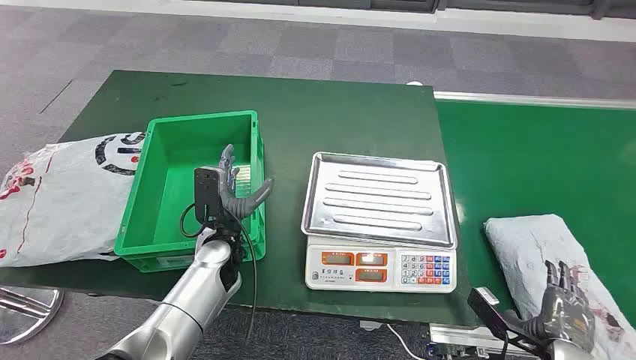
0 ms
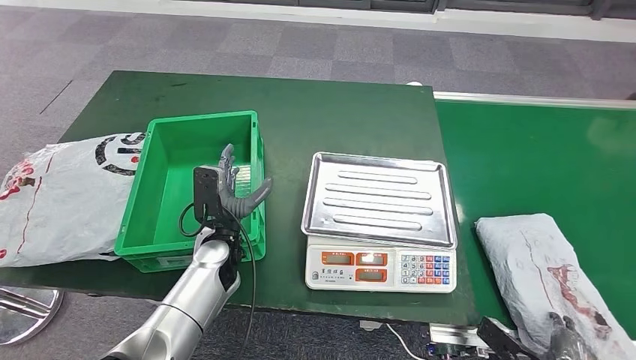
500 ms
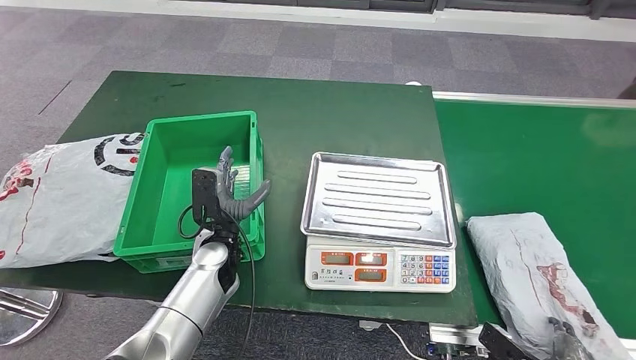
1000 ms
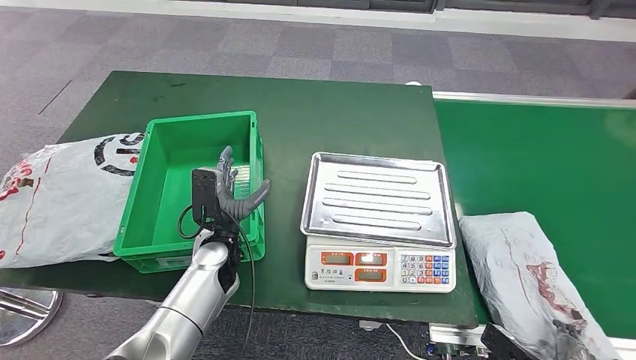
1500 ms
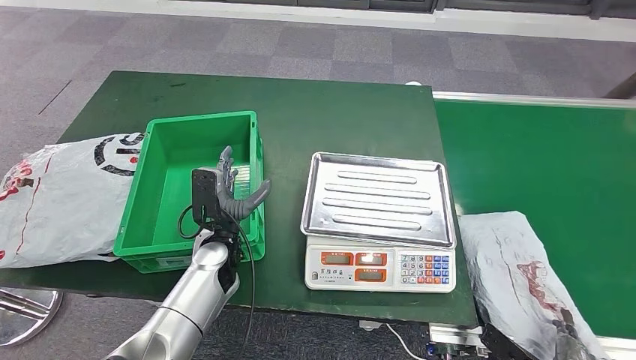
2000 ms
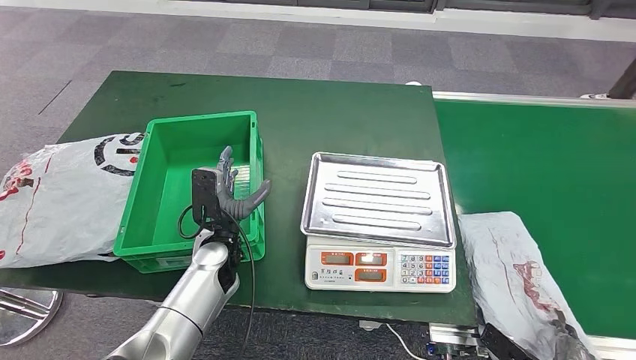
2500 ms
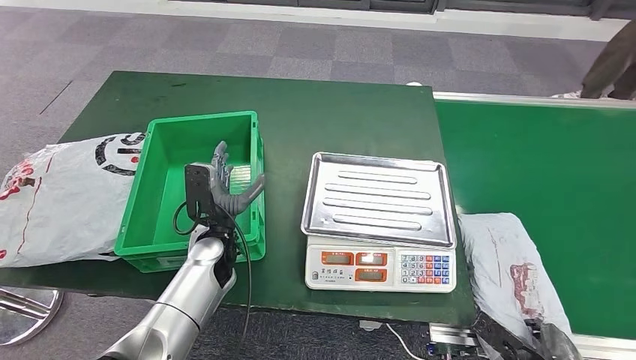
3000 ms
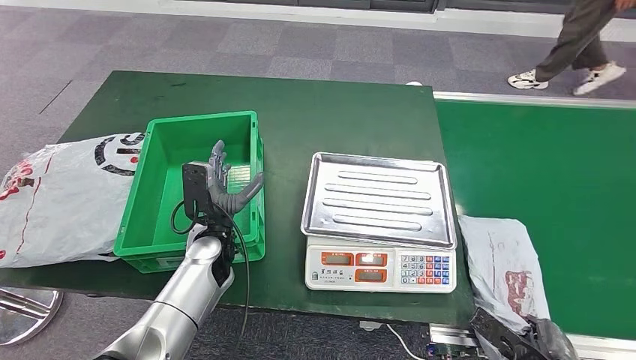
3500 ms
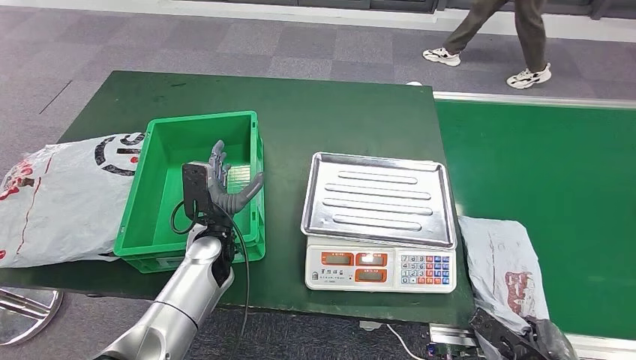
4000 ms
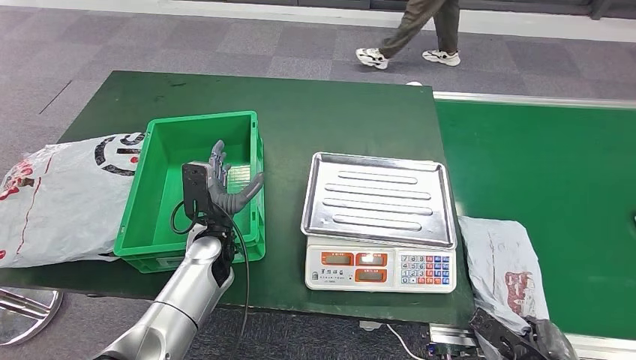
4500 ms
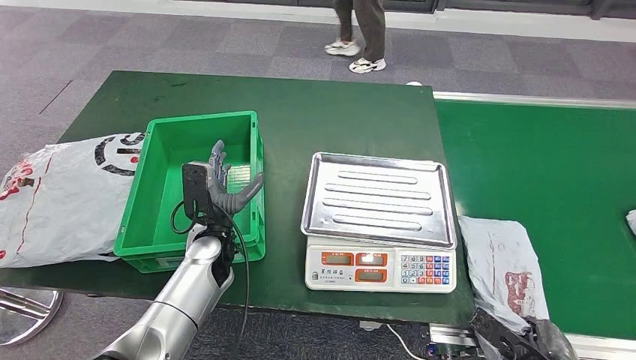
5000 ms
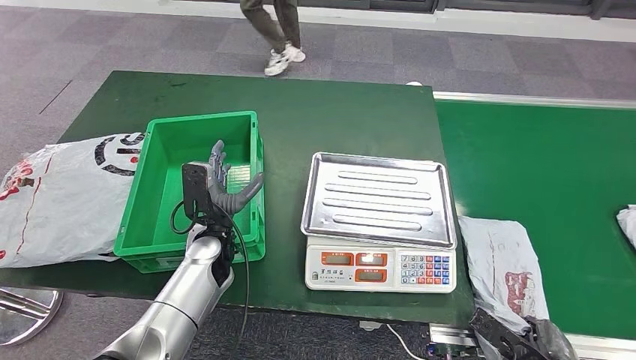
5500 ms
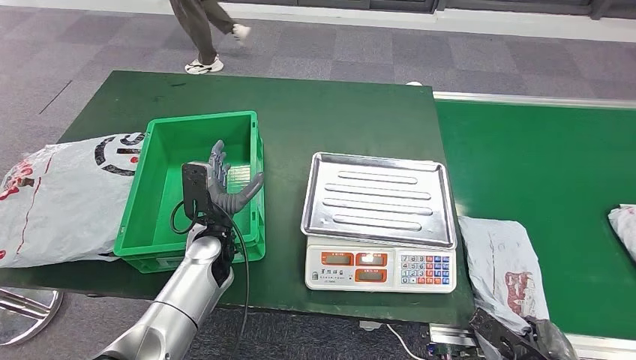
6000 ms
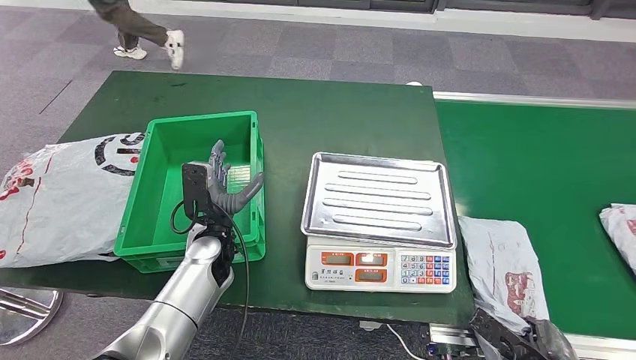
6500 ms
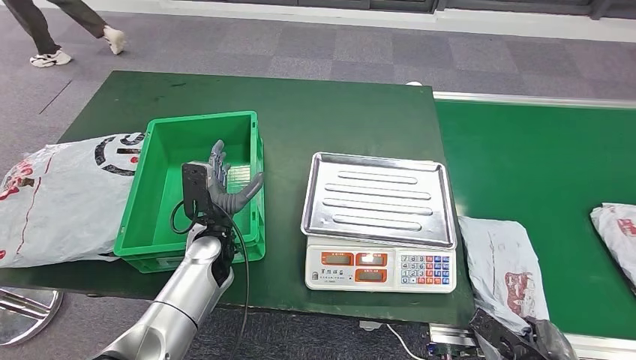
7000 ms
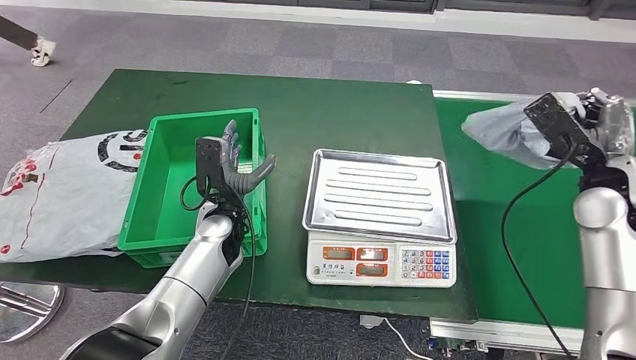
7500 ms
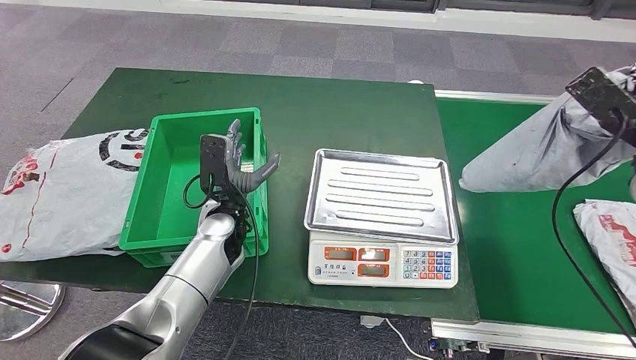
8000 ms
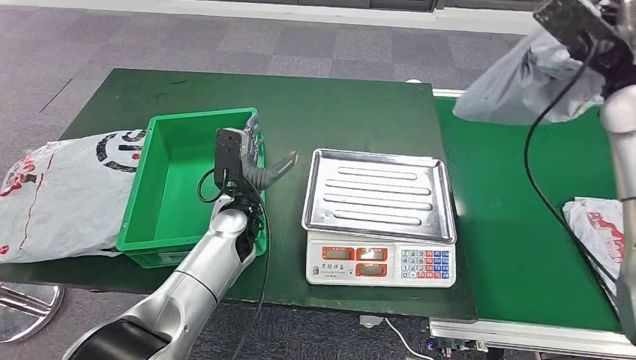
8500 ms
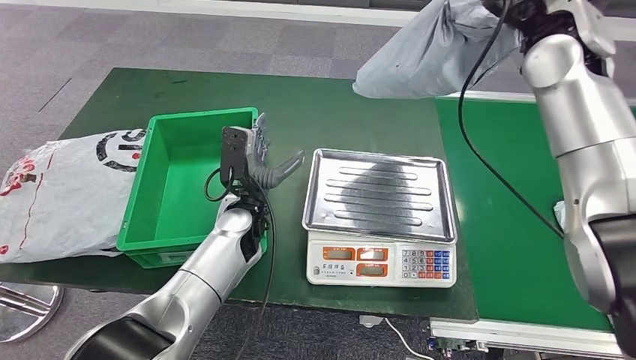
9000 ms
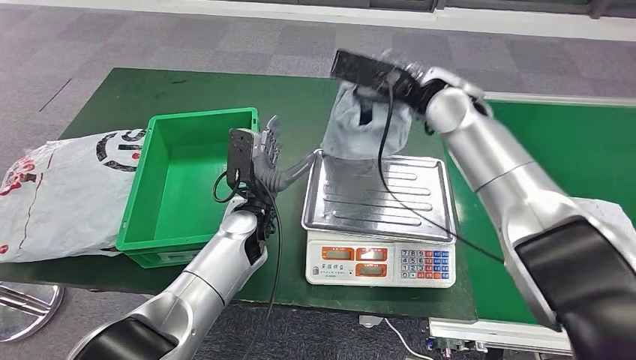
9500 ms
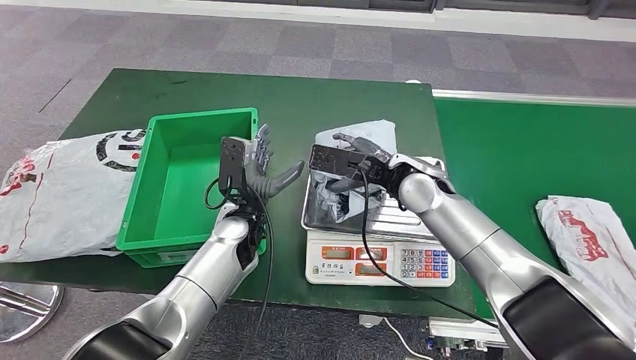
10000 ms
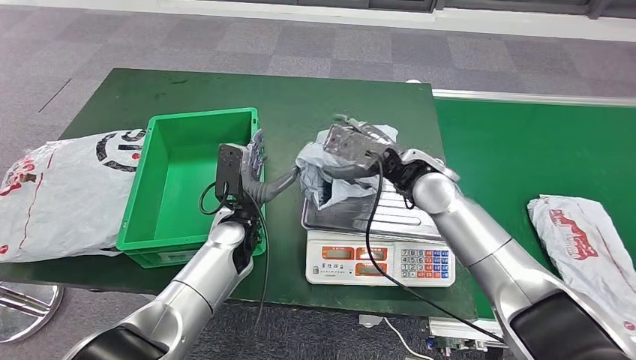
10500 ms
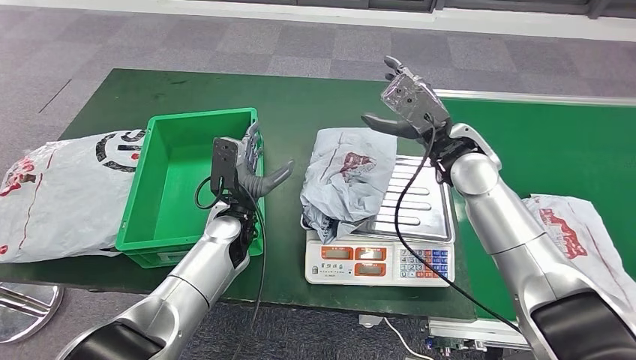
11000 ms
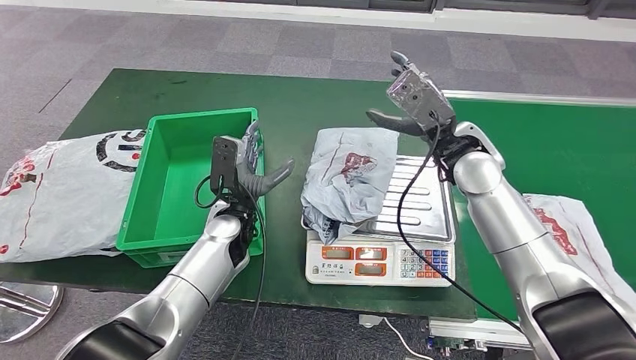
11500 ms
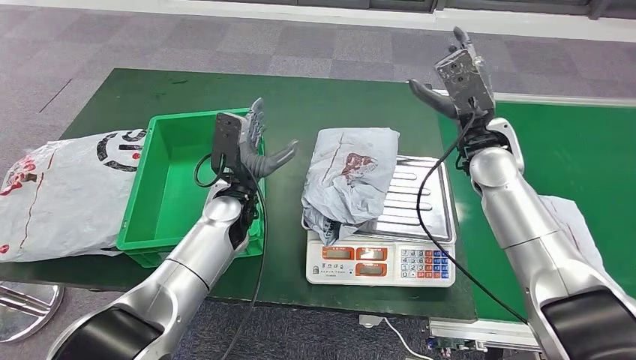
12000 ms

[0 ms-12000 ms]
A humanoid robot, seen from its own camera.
Step, 0 ms to 8500 ms: Take the parcel off the conveyor belt.
2000 ms to 4000 ms: The hands move only a little.
4000 ms to 6000 ms: Both hands stay put.

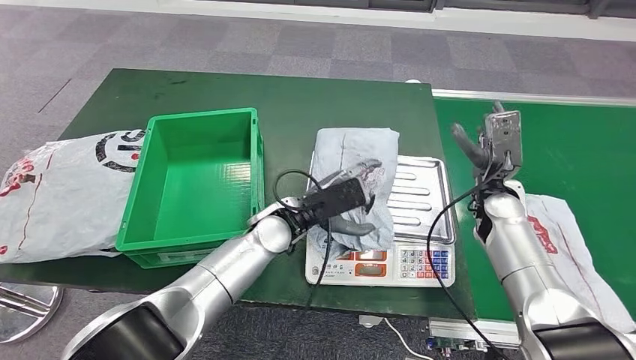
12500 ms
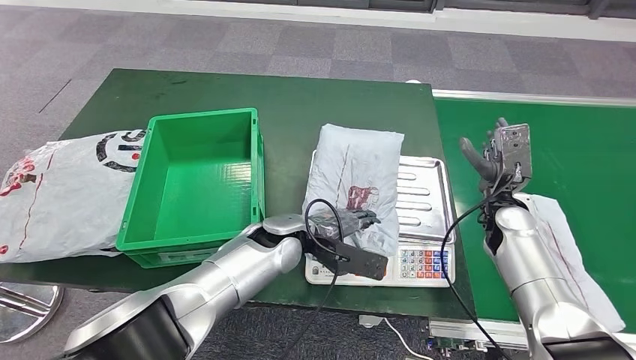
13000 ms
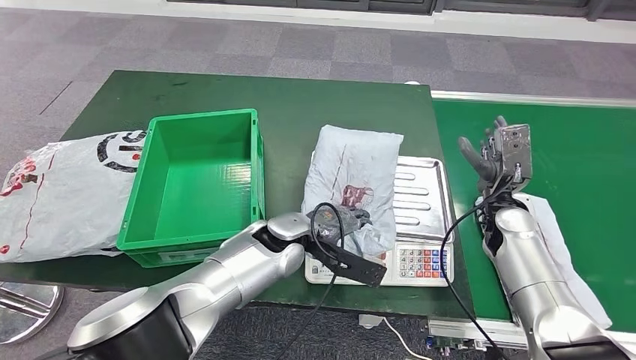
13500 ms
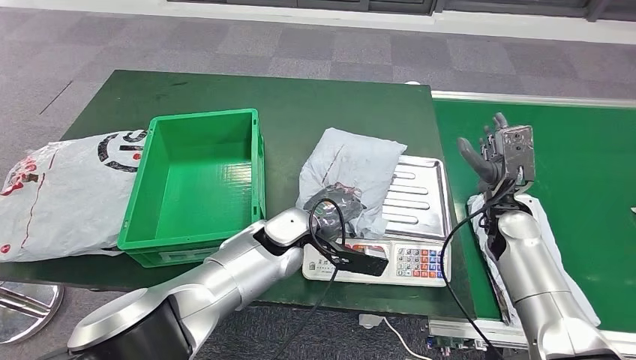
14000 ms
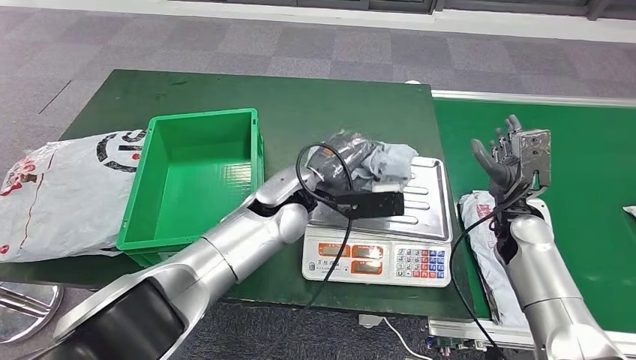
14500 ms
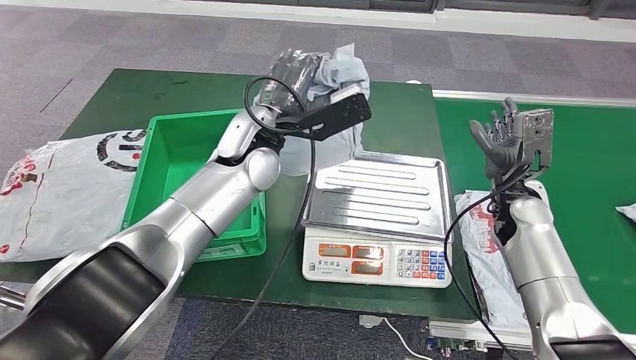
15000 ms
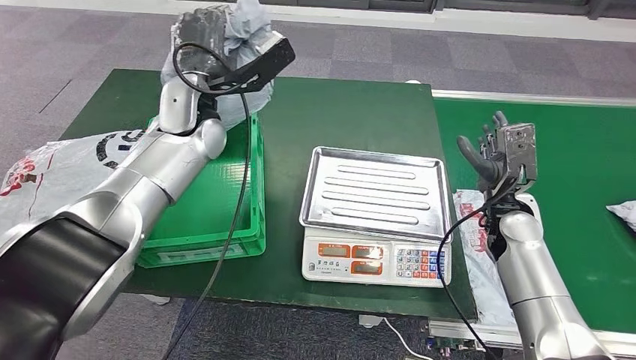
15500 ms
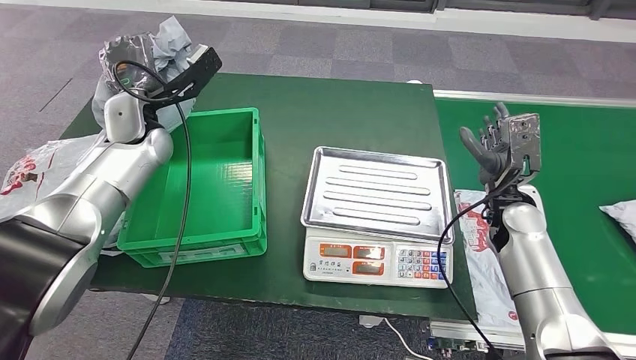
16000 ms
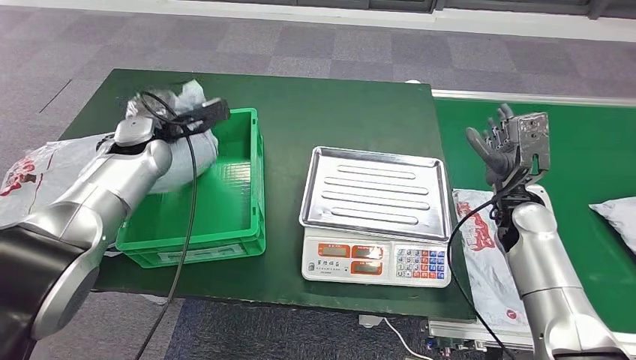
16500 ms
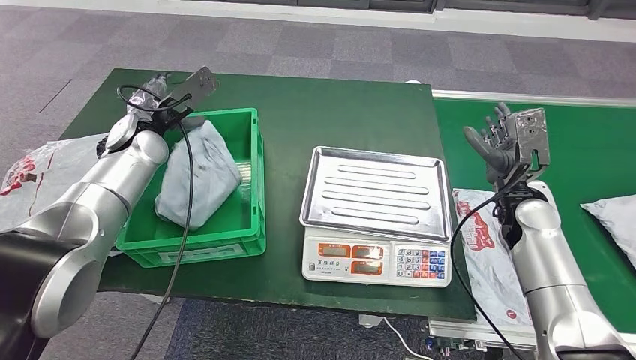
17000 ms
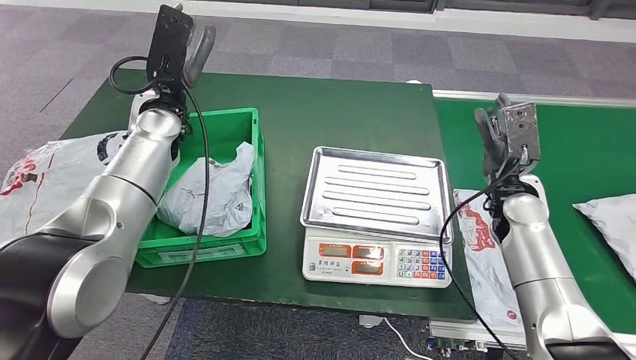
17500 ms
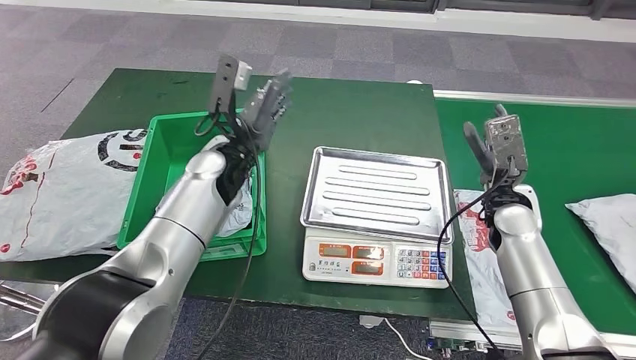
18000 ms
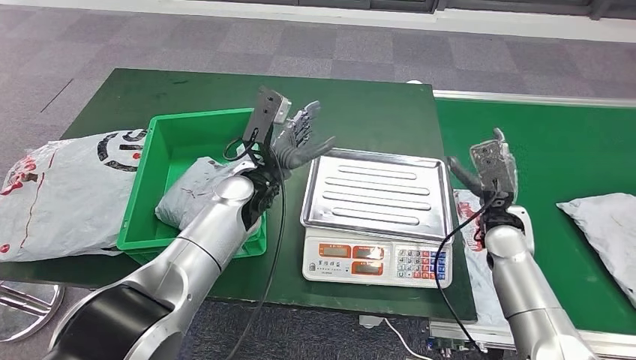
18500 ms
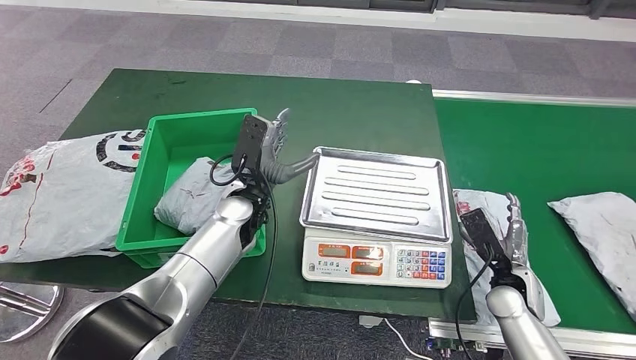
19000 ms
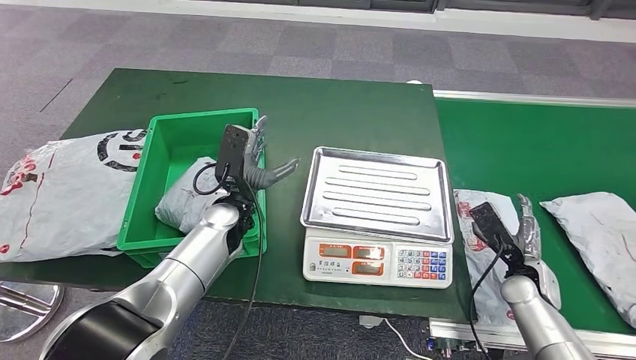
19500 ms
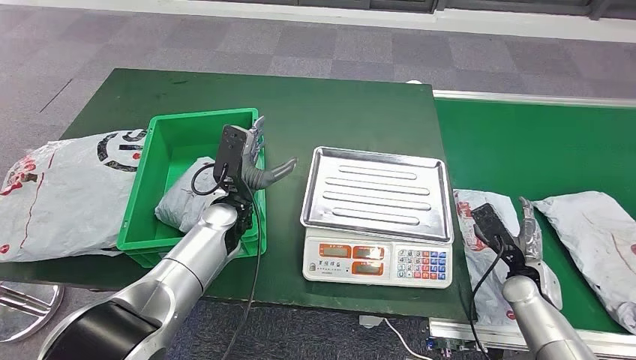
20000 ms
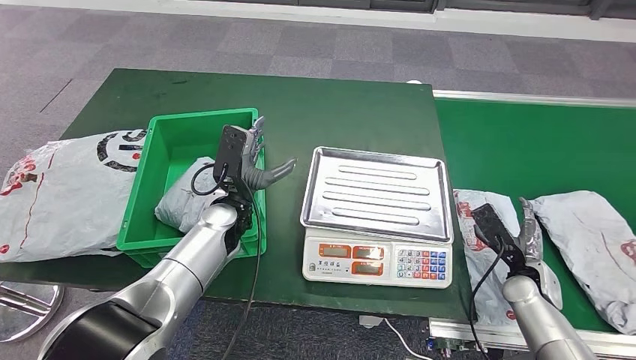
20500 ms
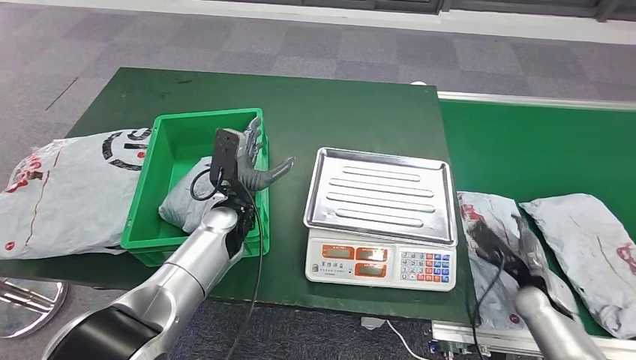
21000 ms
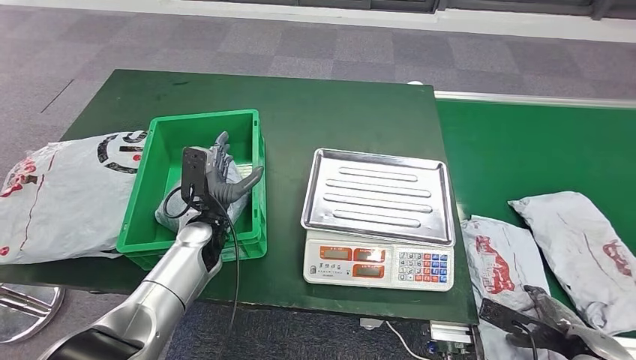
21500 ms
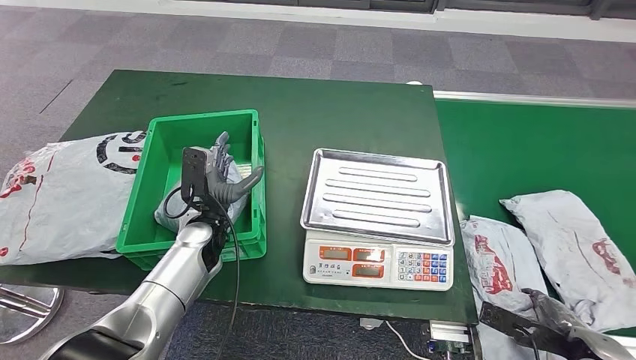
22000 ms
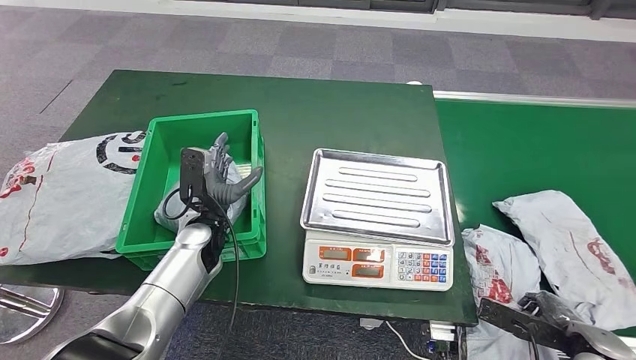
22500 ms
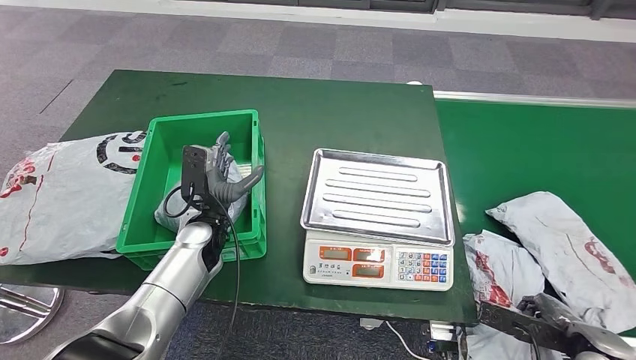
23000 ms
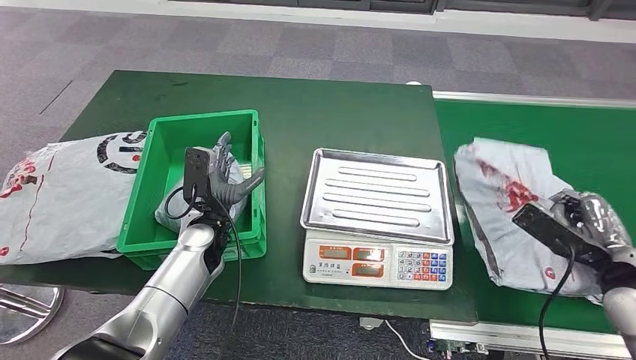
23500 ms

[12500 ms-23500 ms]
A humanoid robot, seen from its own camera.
Step, 12500 ms to 15000 ms: Pick up the parcel from the inbound machine.
Step, 15500 ms to 18000 ms: Put the parcel inside the courier box.
21500 ms to 23500 ms: The right hand shifts about 15 cm upward and forward.
